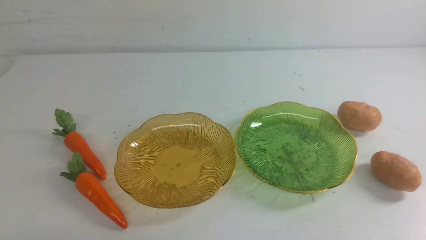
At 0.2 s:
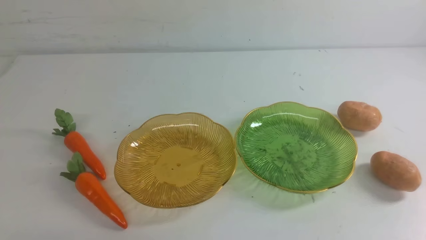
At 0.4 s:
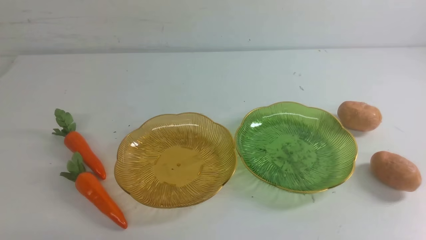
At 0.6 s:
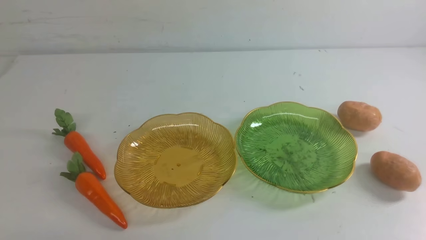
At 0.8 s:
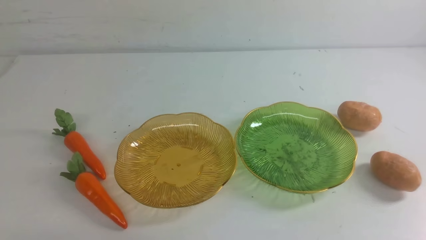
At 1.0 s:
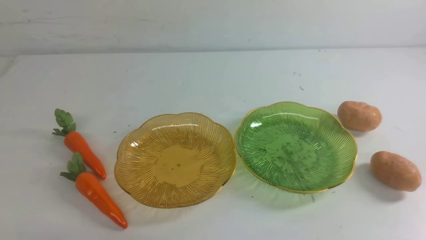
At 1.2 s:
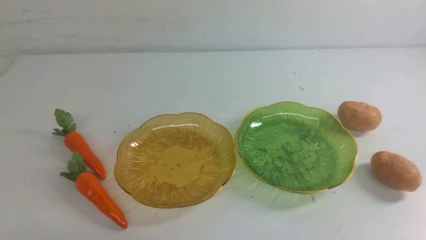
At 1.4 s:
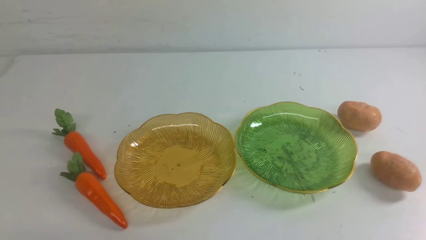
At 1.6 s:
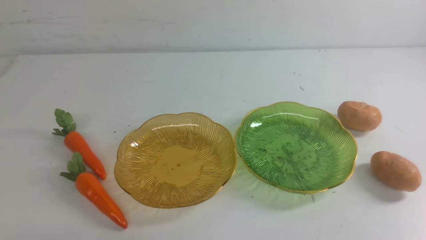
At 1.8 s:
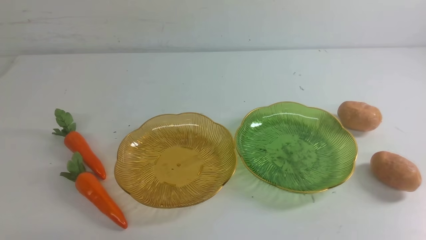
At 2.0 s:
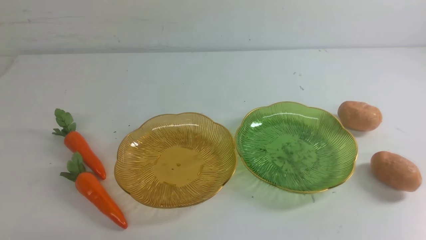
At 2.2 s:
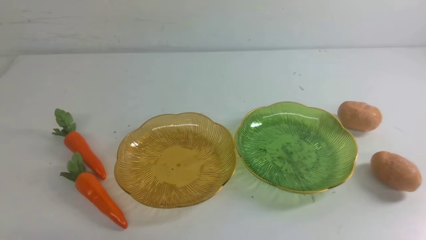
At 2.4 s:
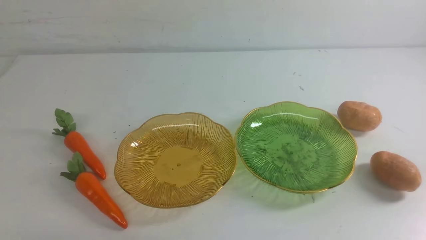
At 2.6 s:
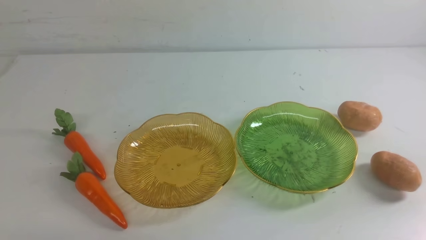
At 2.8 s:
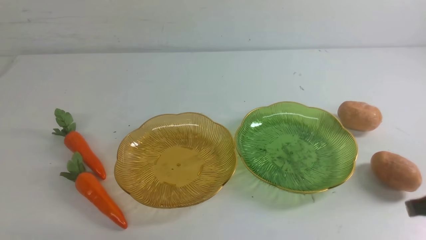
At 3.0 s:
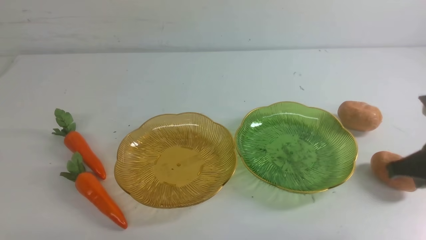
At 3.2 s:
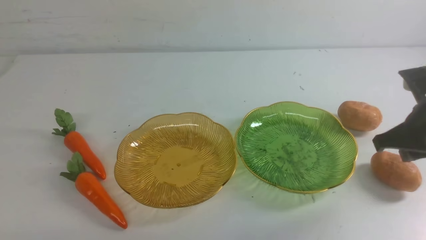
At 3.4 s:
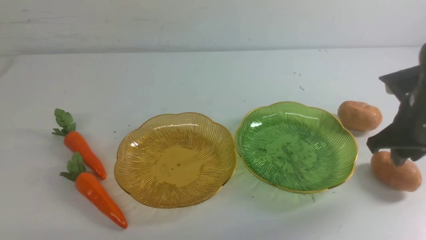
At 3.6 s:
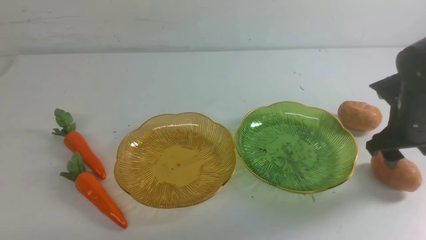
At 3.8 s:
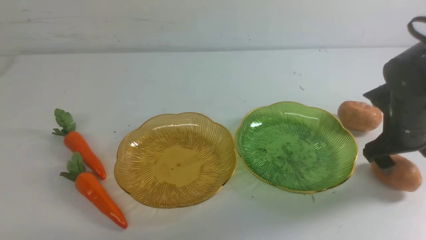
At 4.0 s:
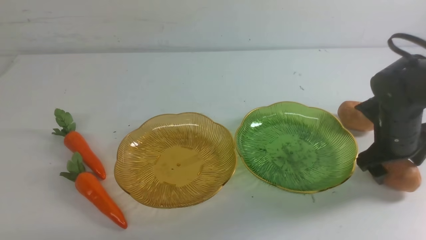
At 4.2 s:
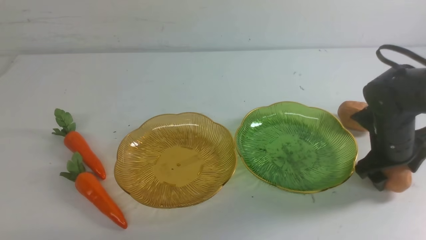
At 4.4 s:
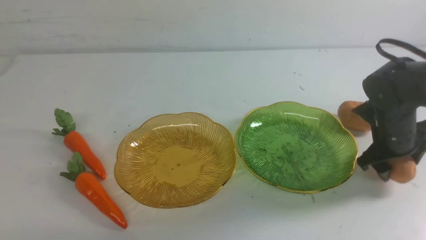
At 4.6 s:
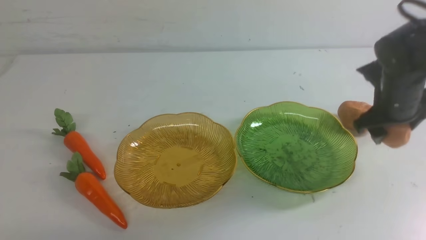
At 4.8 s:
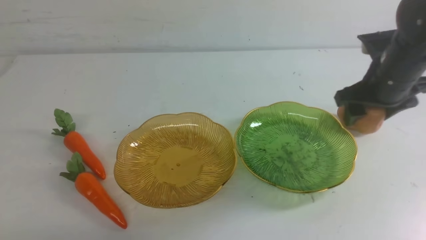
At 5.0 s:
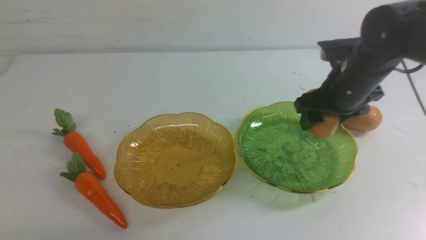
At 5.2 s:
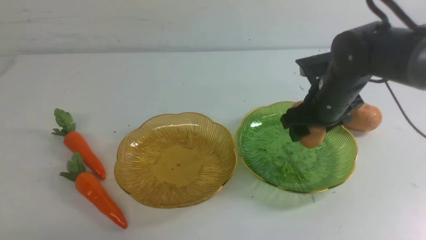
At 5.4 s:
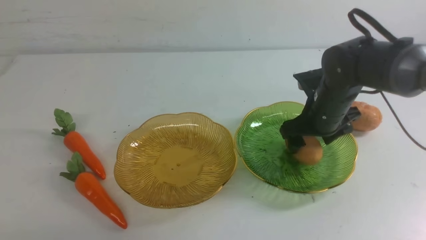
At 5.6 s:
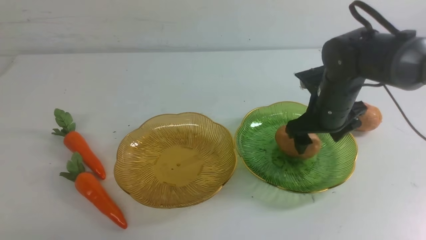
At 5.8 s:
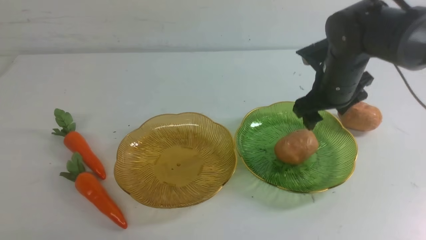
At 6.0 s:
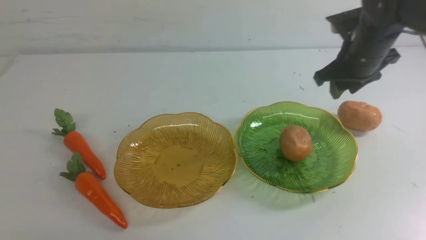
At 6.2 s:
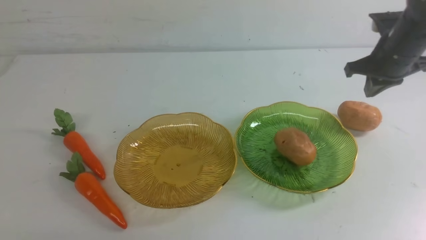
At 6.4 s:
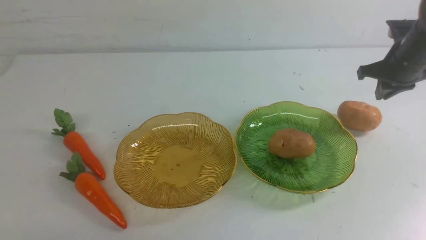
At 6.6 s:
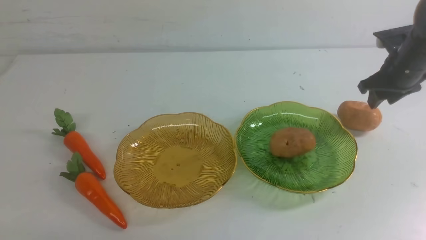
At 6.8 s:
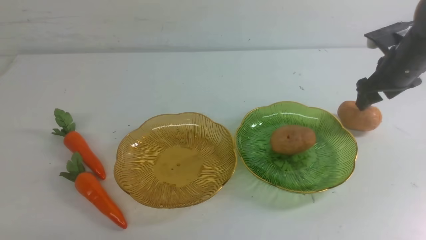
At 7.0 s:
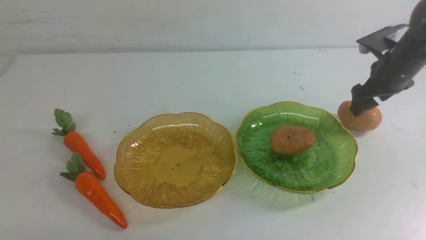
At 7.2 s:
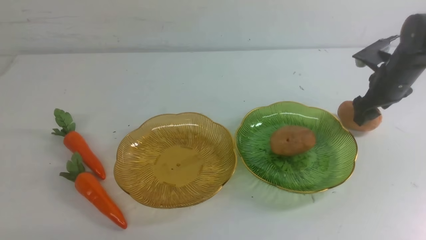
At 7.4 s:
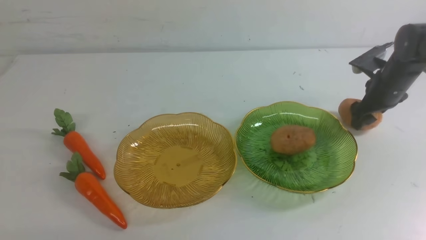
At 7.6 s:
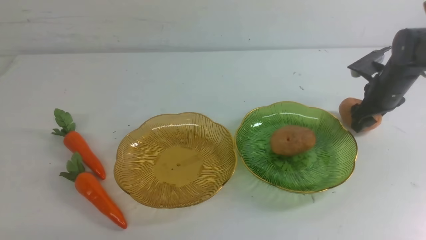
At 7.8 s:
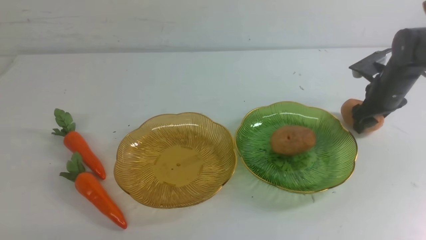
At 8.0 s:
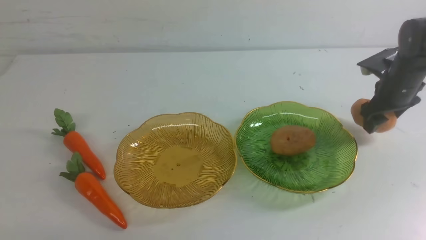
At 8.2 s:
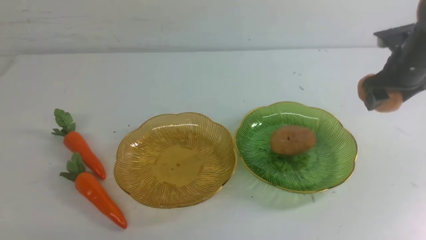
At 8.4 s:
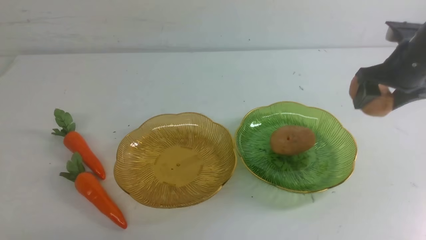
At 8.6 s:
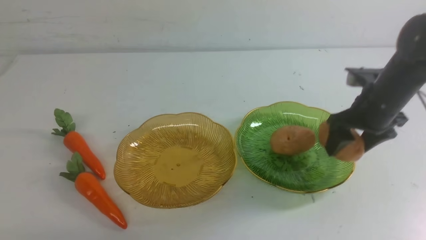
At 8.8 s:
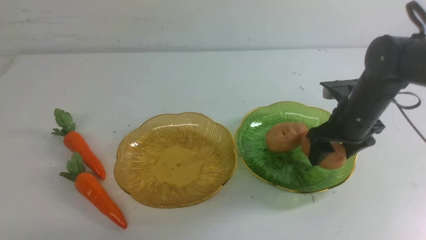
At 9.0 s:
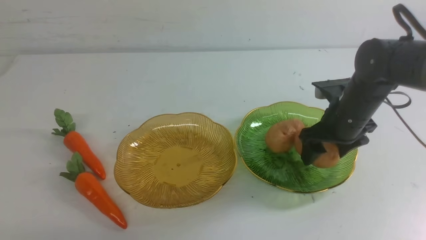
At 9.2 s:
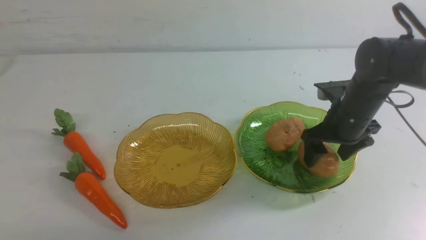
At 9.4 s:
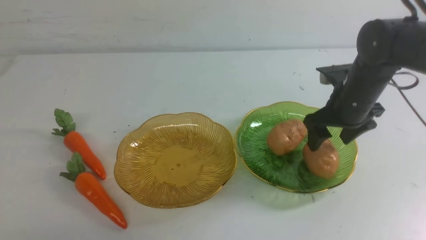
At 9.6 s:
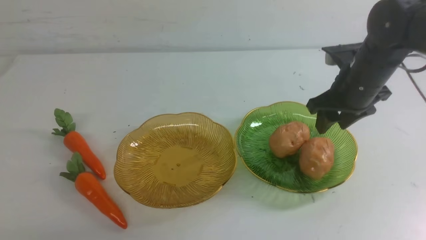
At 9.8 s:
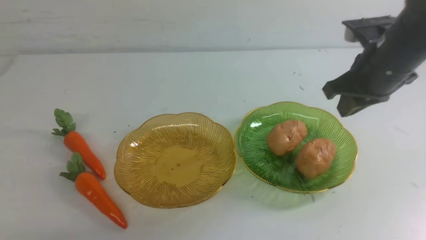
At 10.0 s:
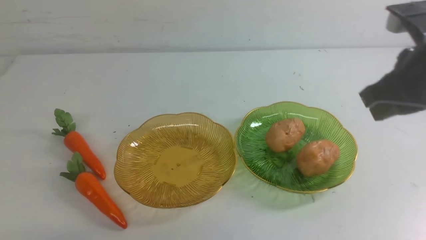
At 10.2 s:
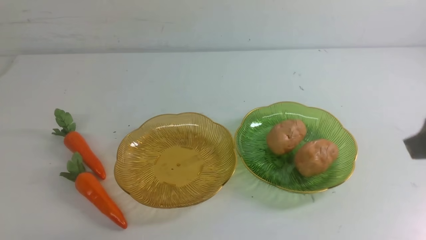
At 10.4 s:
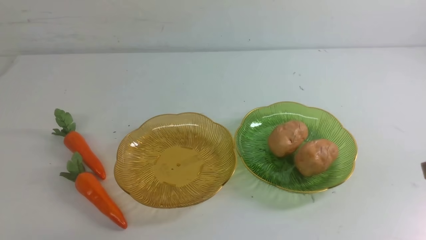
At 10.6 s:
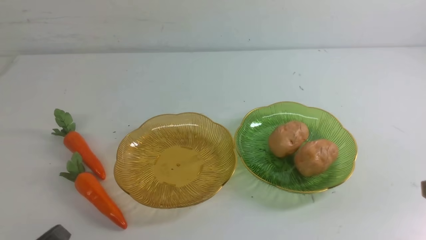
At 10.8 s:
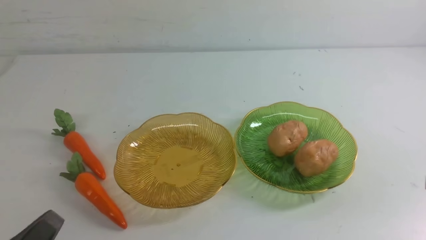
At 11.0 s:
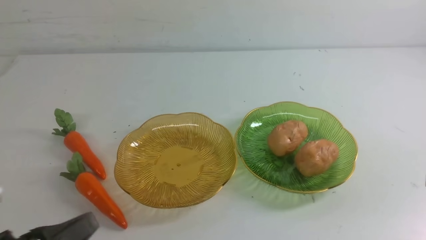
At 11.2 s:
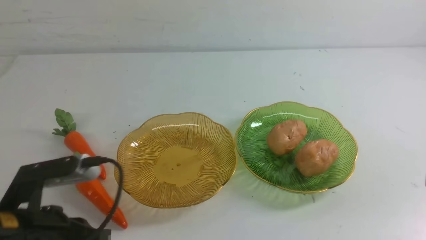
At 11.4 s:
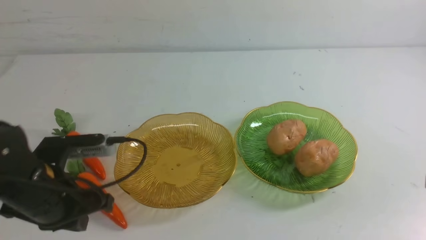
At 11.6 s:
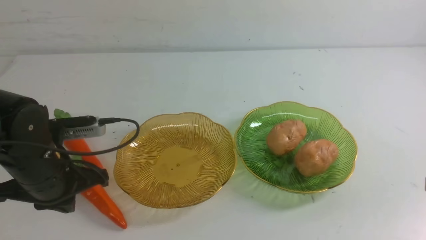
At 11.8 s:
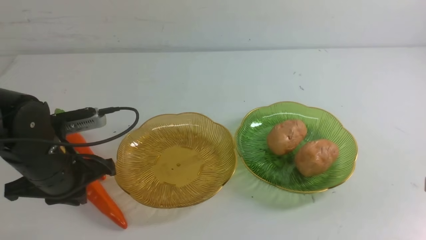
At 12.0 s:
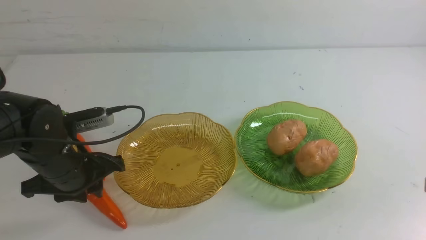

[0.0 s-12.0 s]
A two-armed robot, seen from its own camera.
Step, 0.0 to 5.6 s: Grab a potato with your right arm and put it on the right plate.
Step, 6.0 to 9.6 s: Grab a potato with your right arm and put it on the right plate.
1.6 to 3.0 s: The right gripper moves forward, some 20 cm.
3.0 to 4.4 s: The right gripper goes roughly 10 cm forward, and opens its fingers.
4.4 to 6.0 s: The right gripper heads forward and to the right, covering some 10 cm, and closes its fingers.
6.0 to 7.6 s: The right gripper moves about 10 cm downward and comes back, and opens its fingers.
7.6 to 9.0 s: The right gripper is displaced to the left and backward by approximately 10 cm.
9.0 to 10.4 s: The left gripper heads upward and forward, covering about 10 cm. Meanwhile the right gripper is displaced backward by some 25 cm, and closes.
10.4 to 12.0 s: The left gripper moves forward and downward, approximately 20 cm, and opens its fingers.

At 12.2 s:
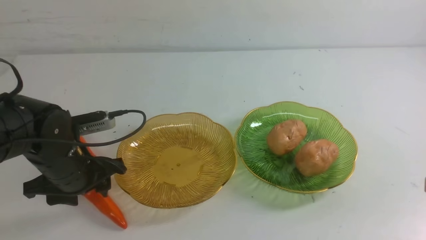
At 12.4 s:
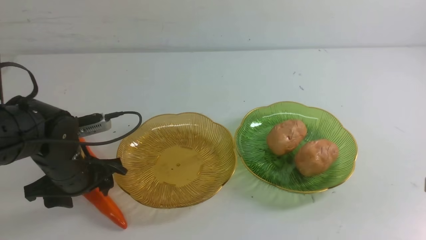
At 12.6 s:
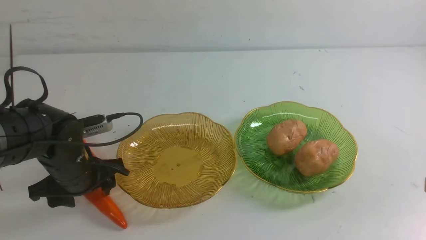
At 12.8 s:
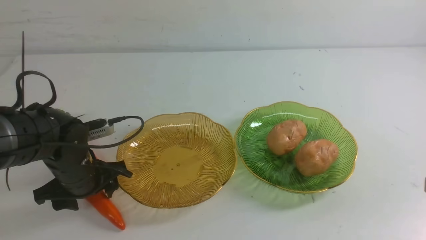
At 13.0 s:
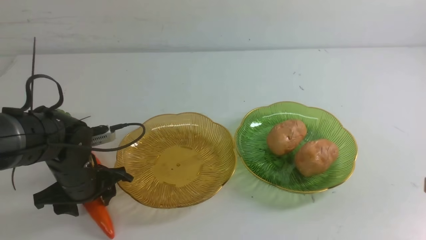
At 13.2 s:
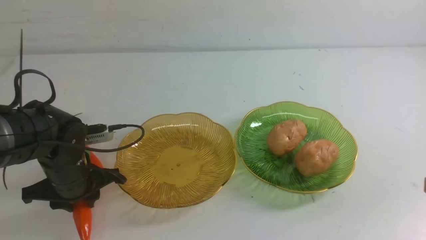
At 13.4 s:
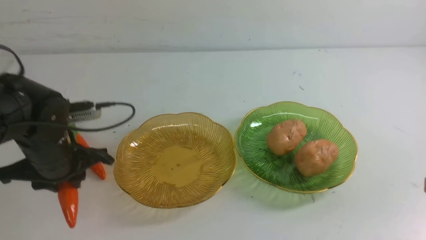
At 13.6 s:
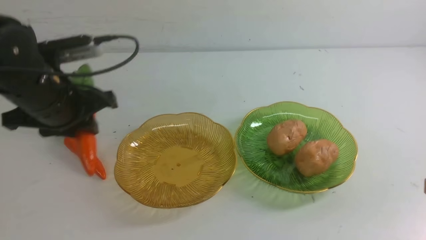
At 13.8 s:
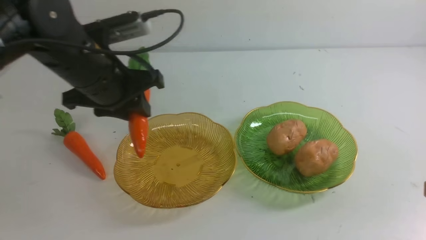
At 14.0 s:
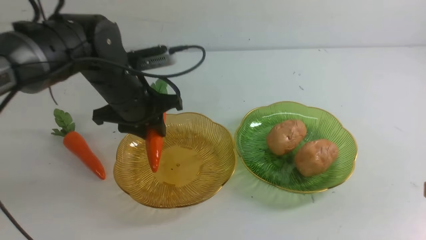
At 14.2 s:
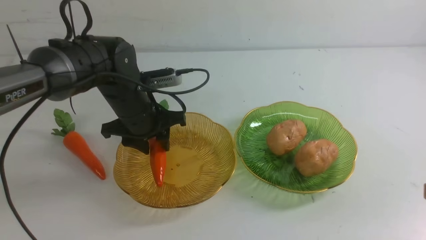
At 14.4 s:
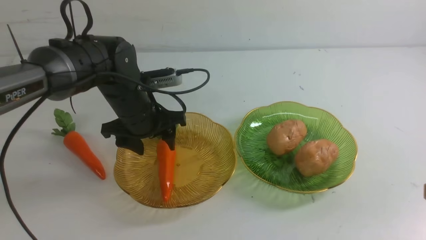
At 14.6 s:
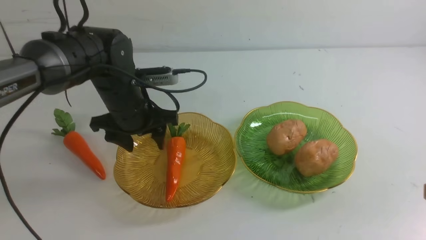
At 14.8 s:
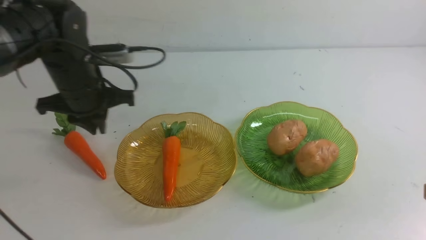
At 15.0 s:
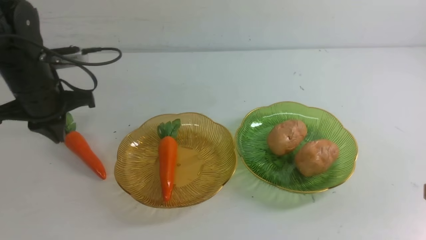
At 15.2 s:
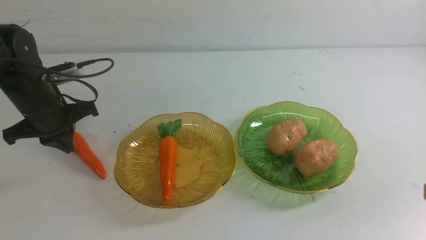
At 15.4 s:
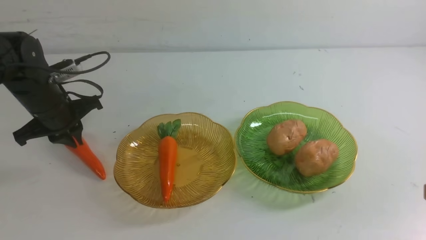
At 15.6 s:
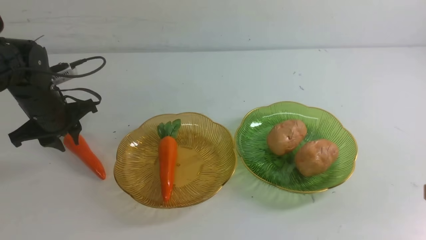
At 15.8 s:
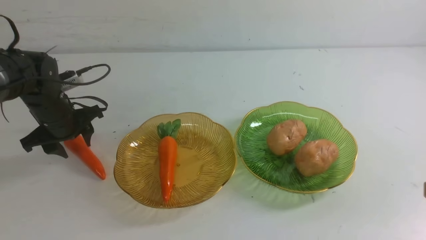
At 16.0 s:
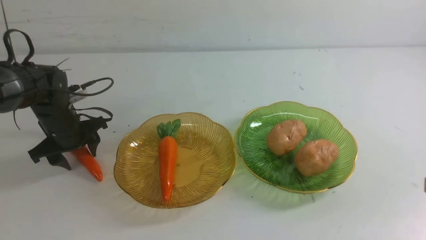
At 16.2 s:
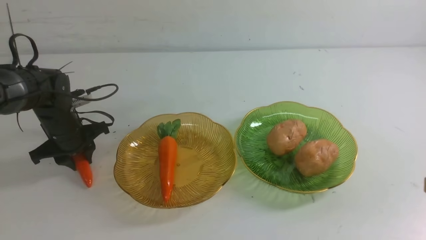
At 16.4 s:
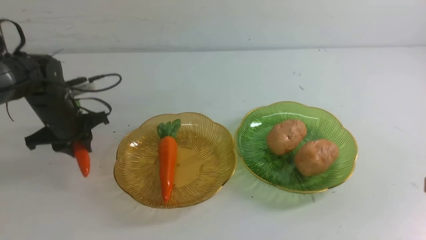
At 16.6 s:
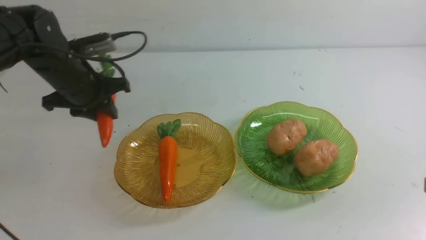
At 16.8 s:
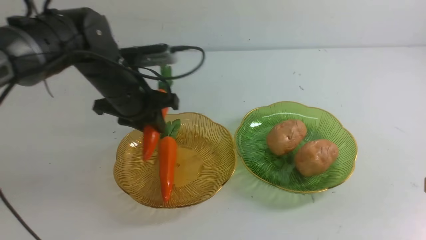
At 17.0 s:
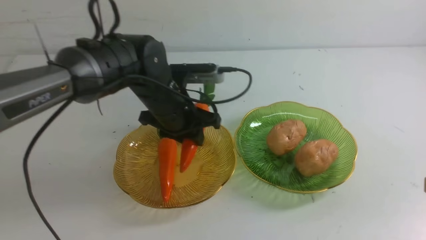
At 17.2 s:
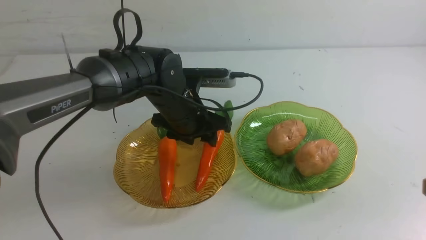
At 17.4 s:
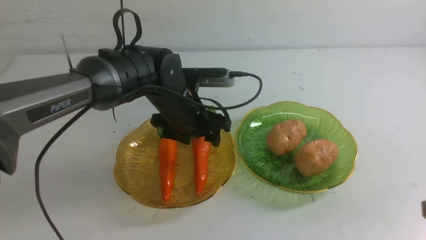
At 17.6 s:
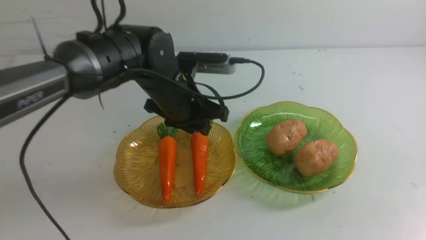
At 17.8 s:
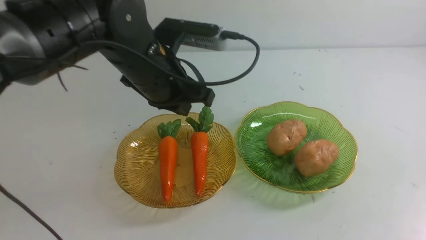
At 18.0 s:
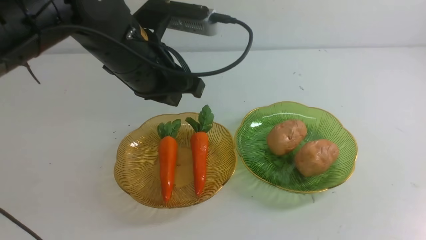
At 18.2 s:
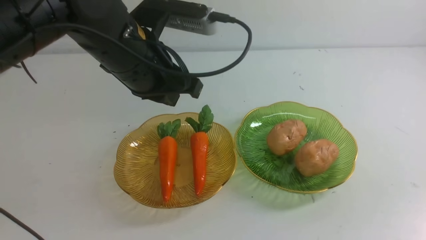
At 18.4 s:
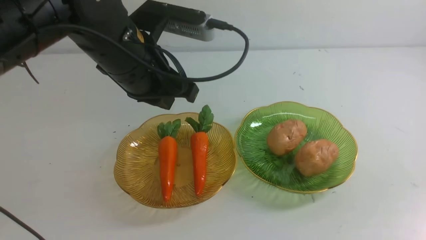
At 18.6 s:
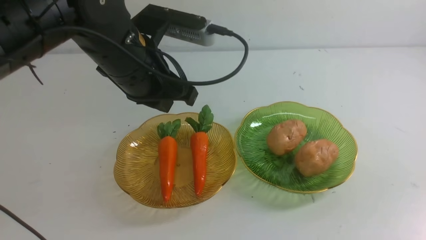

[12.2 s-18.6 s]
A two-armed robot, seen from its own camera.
Step, 12.2 to 14.6 s: use the left arm to grab a carrot and put it into the left plate.
Step, 14.8 to 17.8 s: use the left arm to grab a carrot and put it into the left plate.
12.2 to 13.8 s: The left gripper heads forward, to the right and upward, covering about 15 cm, and closes and opens again.
13.8 to 15.4 s: The left gripper shifts approximately 15 cm to the left, and closes and opens again.
15.4 to 17.0 s: The left gripper shifts approximately 20 cm to the right.
17.0 to 18.6 s: The left gripper shifts some 15 cm upward and backward, and closes up.
